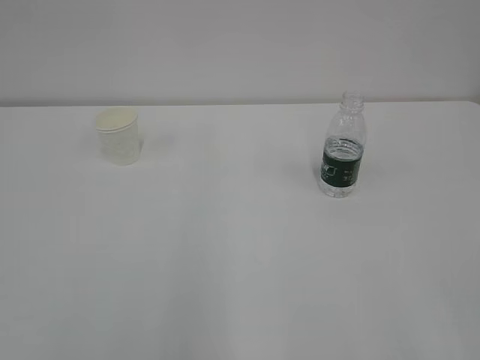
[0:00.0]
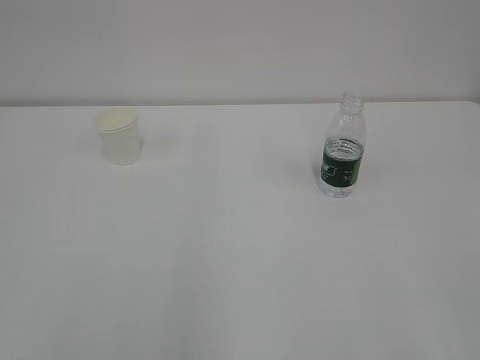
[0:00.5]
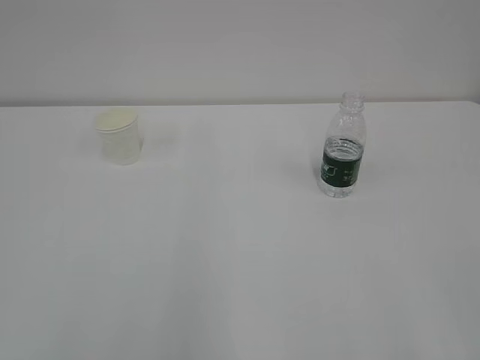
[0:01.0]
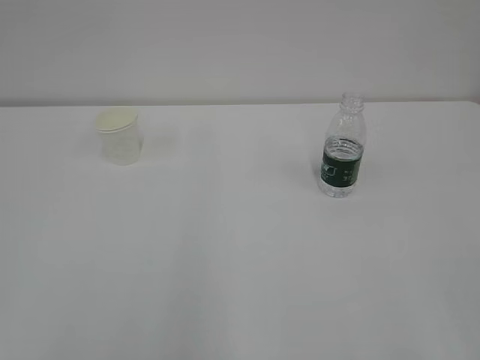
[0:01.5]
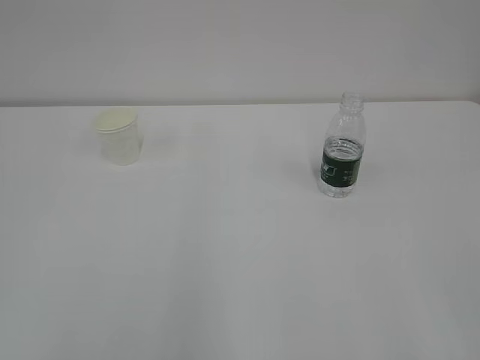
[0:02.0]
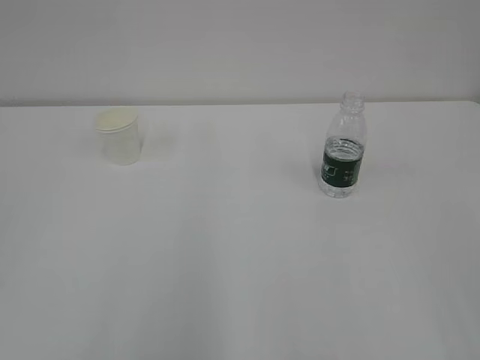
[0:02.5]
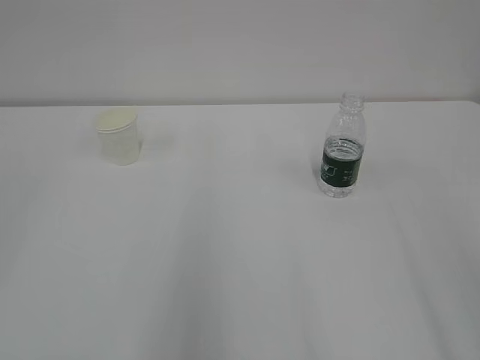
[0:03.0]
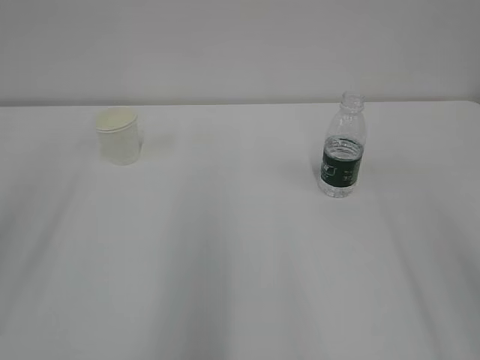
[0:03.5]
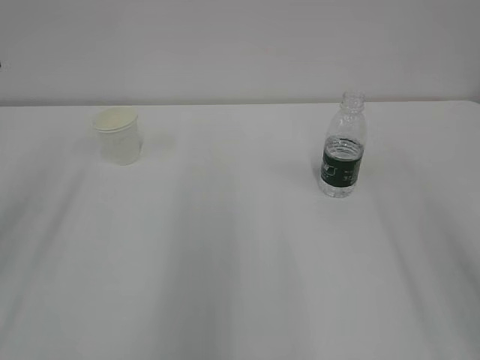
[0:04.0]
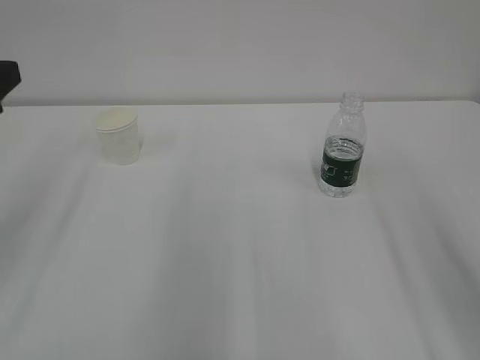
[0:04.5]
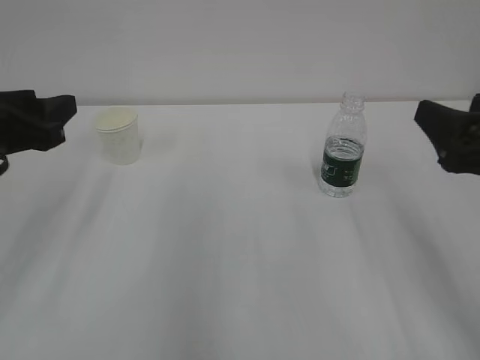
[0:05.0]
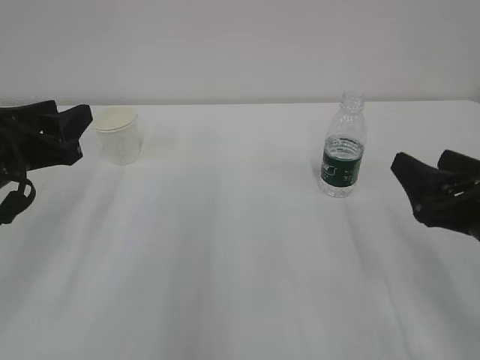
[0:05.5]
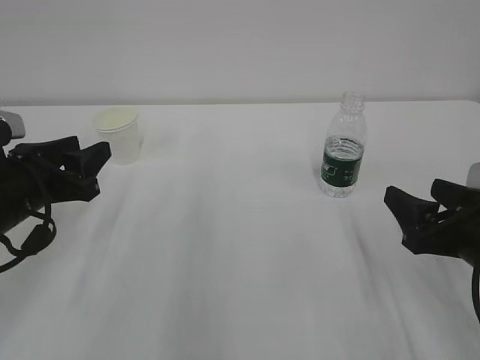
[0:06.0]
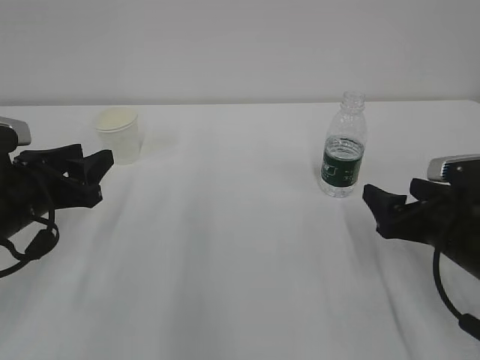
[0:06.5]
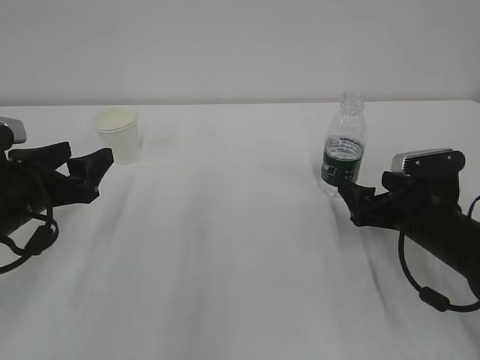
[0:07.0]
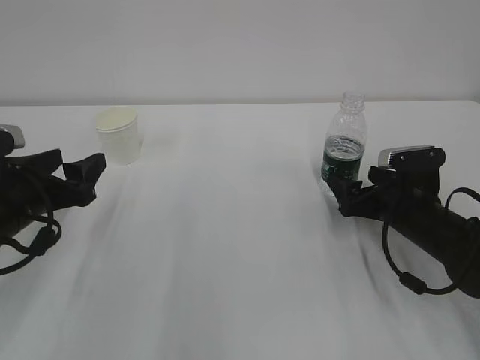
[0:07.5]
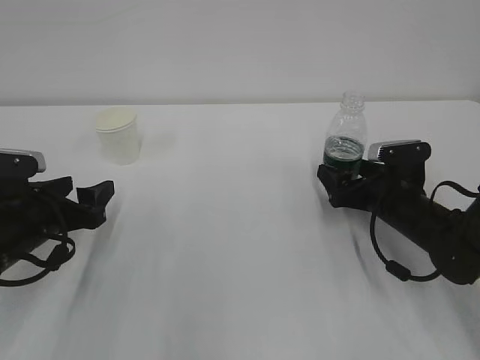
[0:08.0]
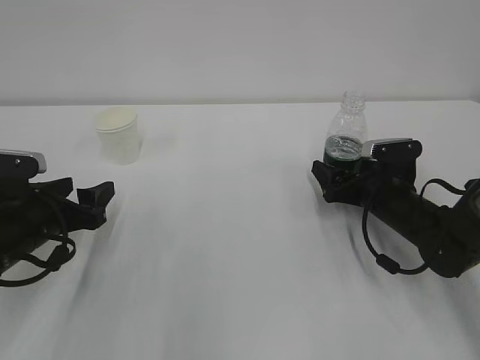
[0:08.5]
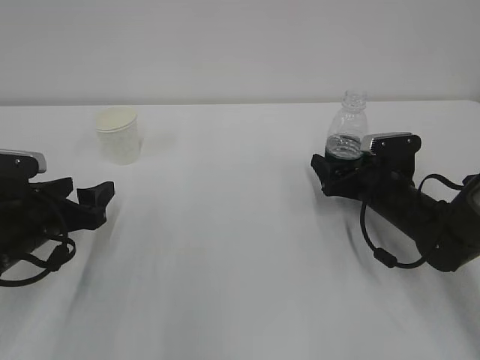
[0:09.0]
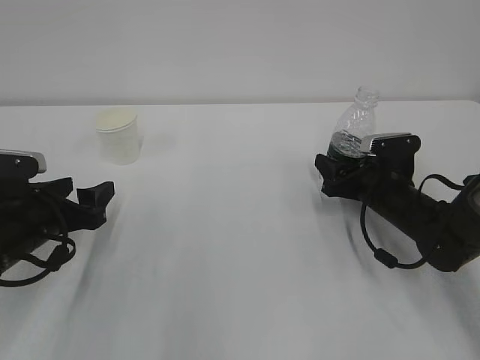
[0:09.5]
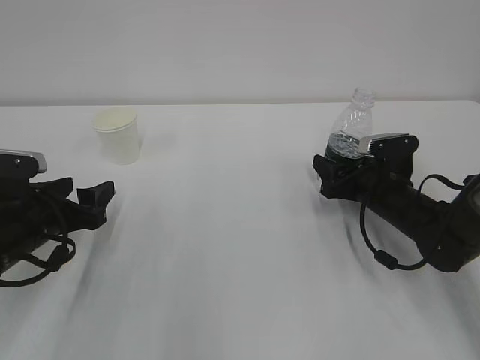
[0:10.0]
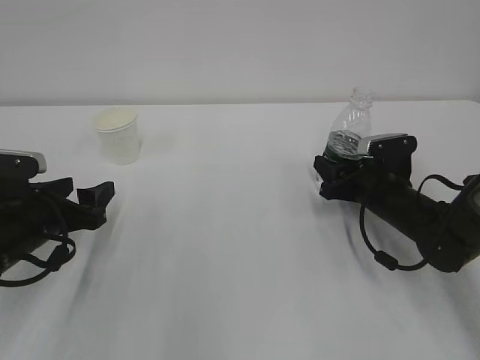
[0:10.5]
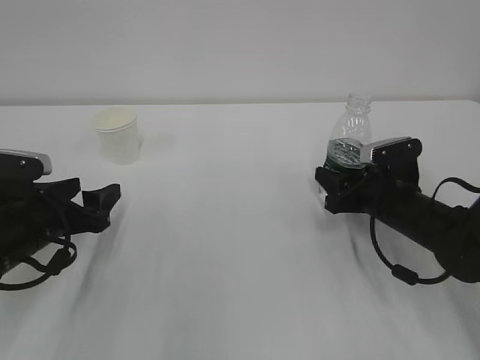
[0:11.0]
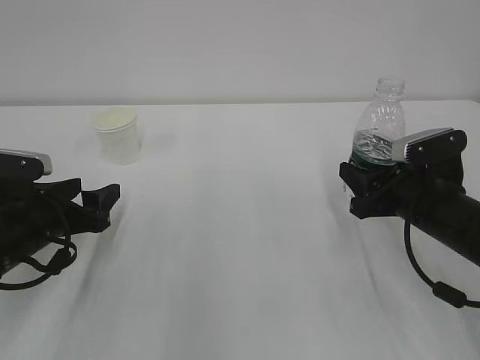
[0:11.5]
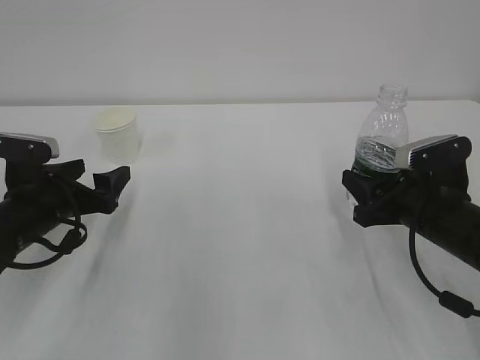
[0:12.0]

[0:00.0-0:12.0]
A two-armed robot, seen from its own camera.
0:04.0 to 0:06.0: The right gripper goes approximately 25 cm downward and forward. The left gripper shifts some 15 cm downward.
0:06.0 to 0:08.0: The right gripper heads forward and downward, covering approximately 15 cm. Meanwhile the left gripper heads downward, covering roughly 5 cm, and opens its fingers.
0:08.0 to 0:10.0: The right gripper closes its fingers.
0:10.0 to 0:12.0: The left gripper opens its fingers; the right gripper is displaced backward and upward by roughly 10 cm.

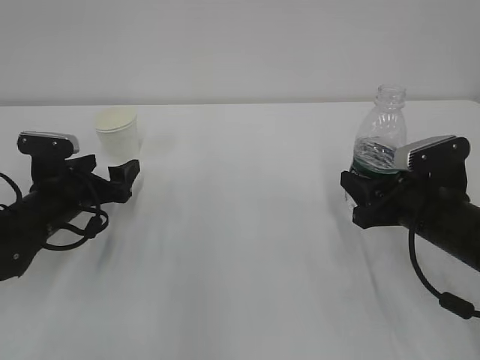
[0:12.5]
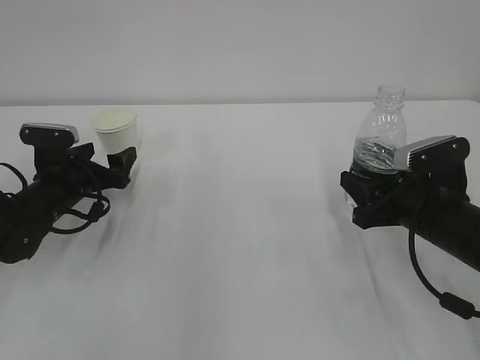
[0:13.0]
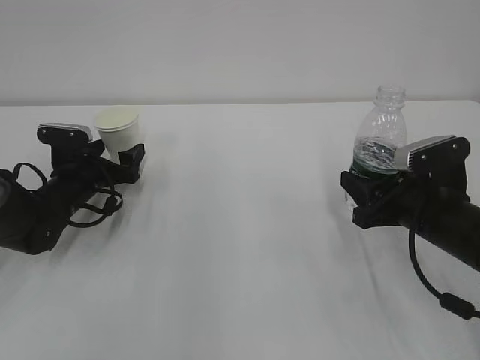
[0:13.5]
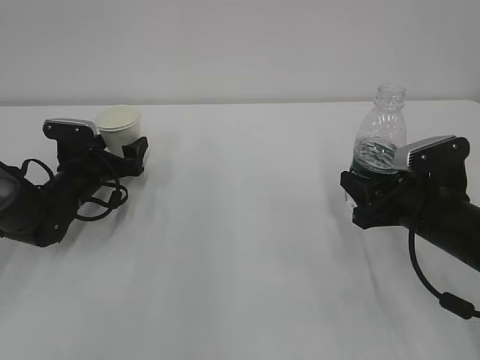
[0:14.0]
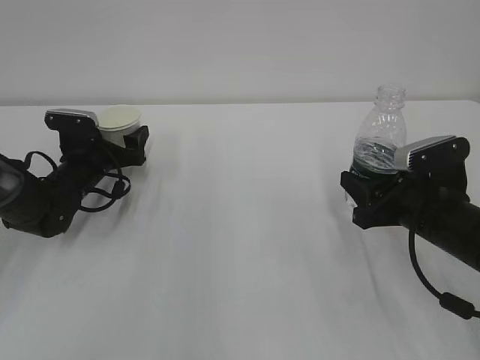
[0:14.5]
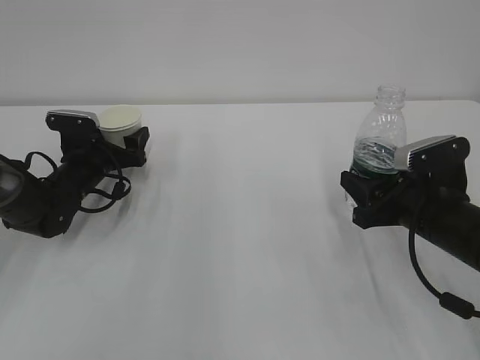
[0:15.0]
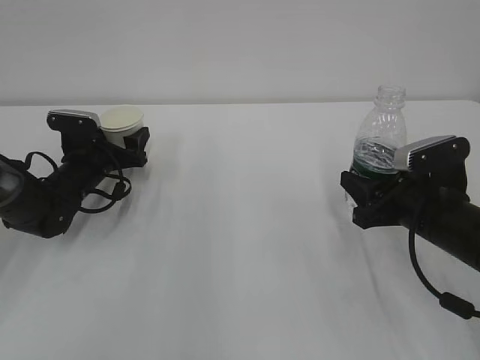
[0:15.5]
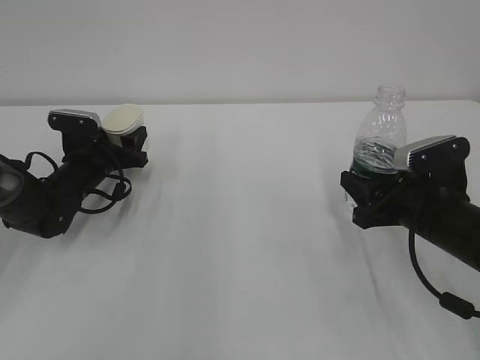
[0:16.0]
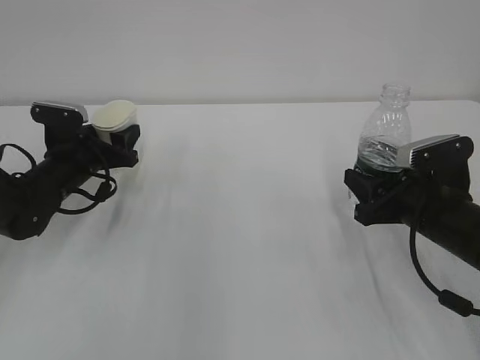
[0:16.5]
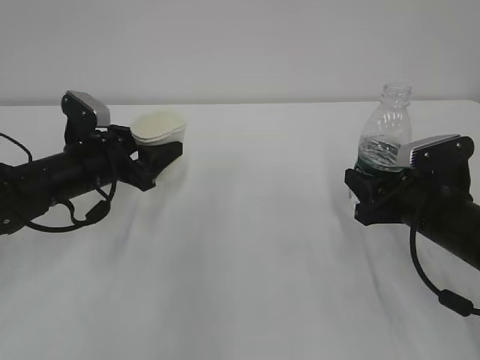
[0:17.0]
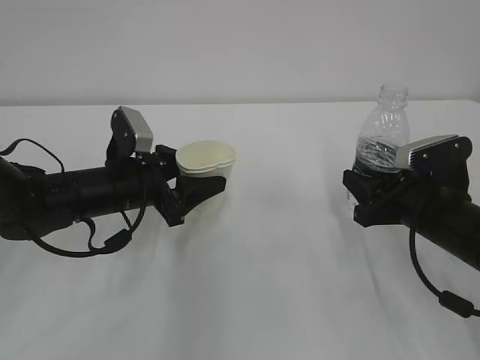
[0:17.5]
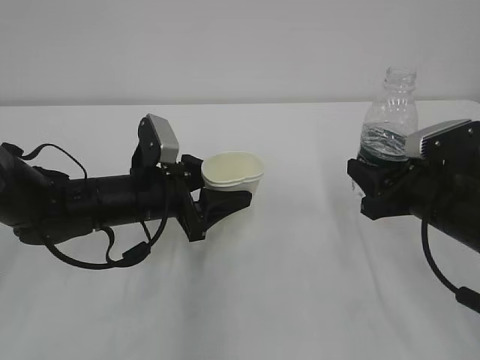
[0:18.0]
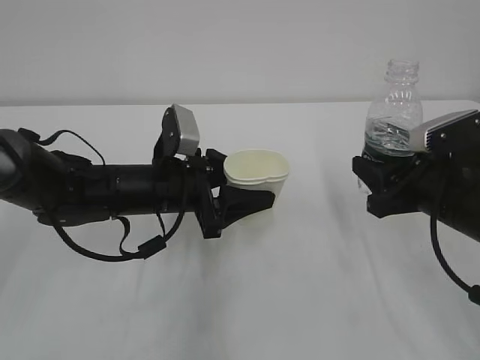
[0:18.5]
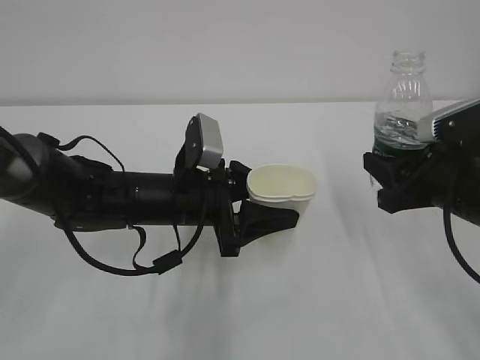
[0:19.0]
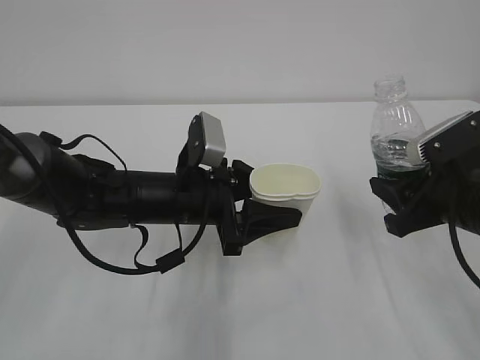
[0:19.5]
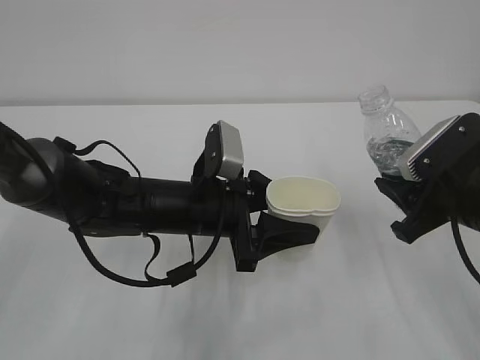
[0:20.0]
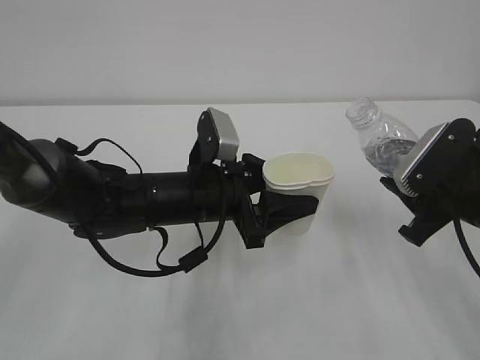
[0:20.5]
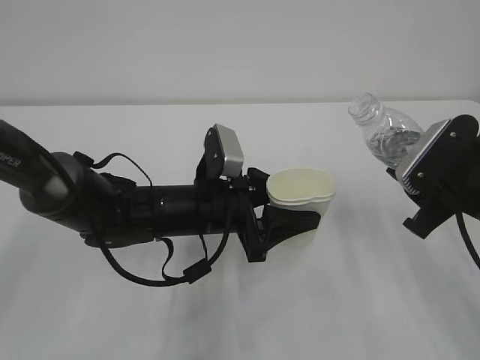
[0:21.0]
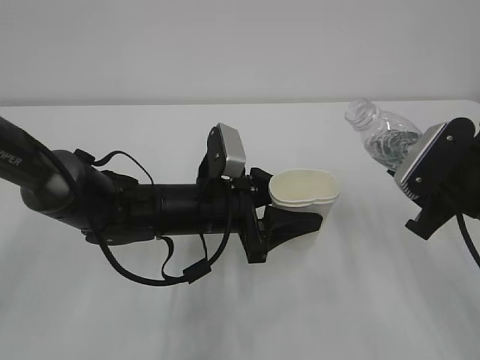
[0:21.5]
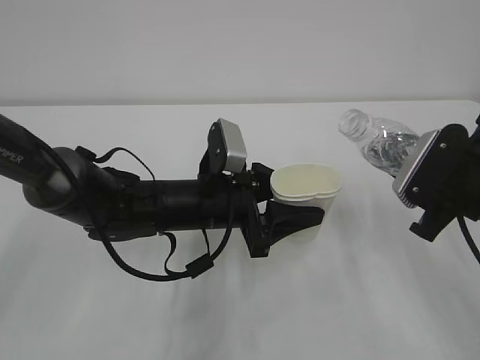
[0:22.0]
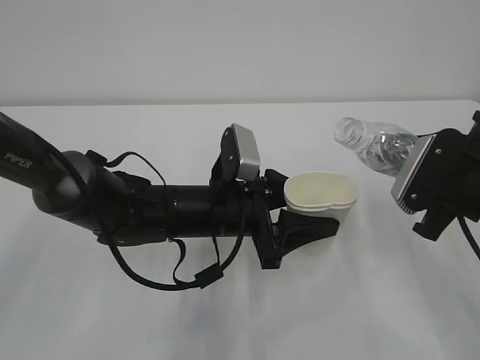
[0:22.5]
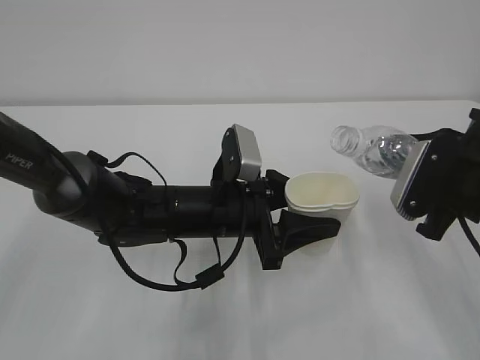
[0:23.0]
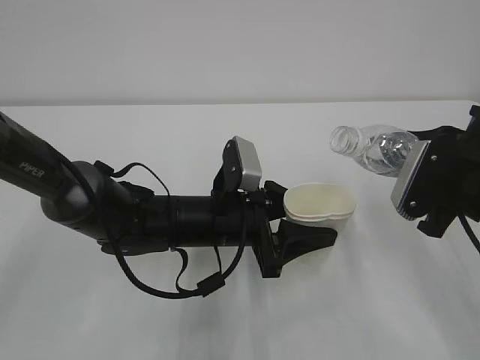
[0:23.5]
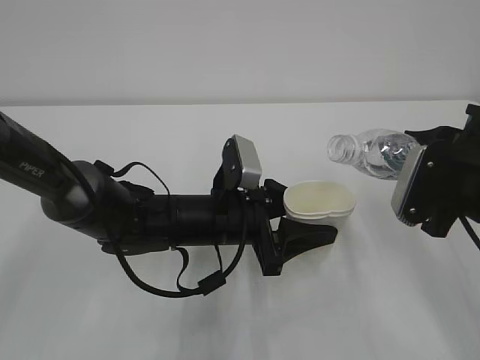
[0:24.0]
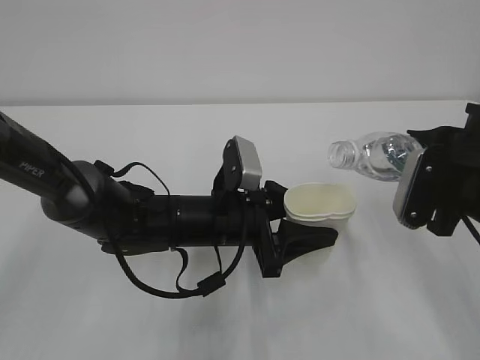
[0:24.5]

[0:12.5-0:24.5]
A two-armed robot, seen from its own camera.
0:12.5 to 0:14.5: The left gripper shifts about 10 cm forward.
0:14.5 to 0:16.5: The left gripper shifts by roughly 5 cm, and closes its fingers.
0:16.5 to 0:18.5: The left gripper moves to the right and backward, about 15 cm.
0:20.5 to 0:22.5: The grippers move only a little.
0:22.5 to 0:24.5: The grippers stay close to where they were, moving slightly.

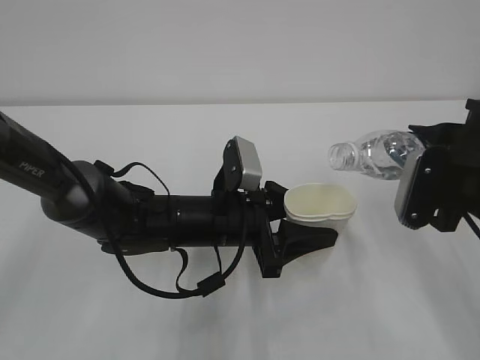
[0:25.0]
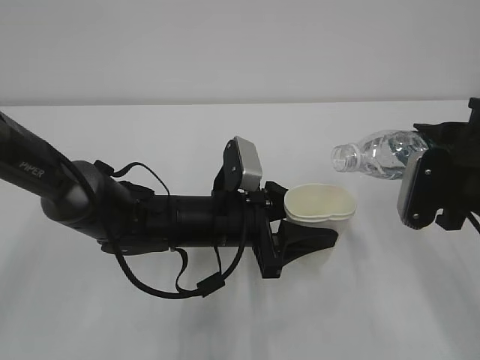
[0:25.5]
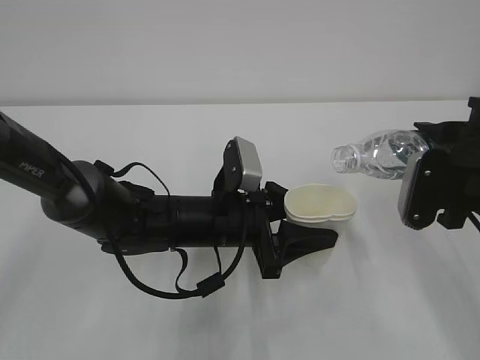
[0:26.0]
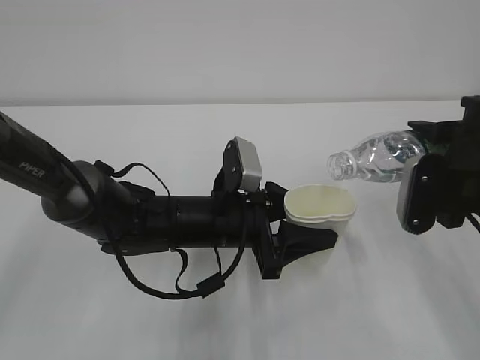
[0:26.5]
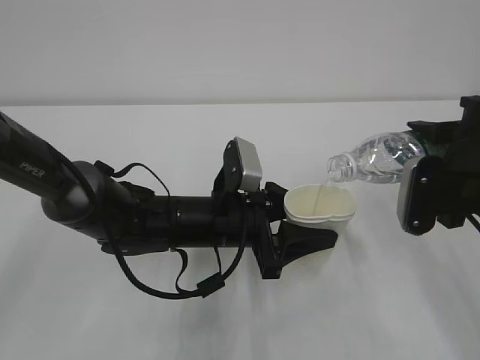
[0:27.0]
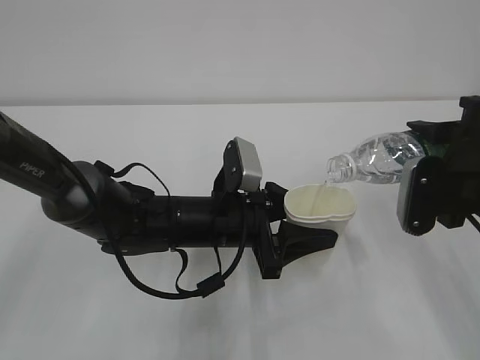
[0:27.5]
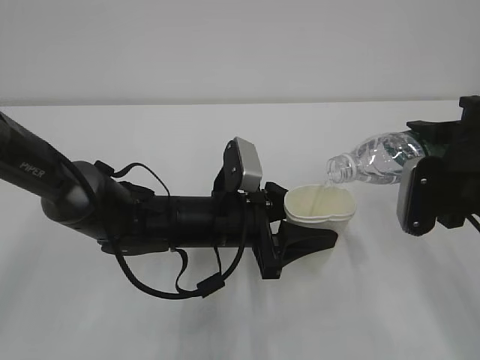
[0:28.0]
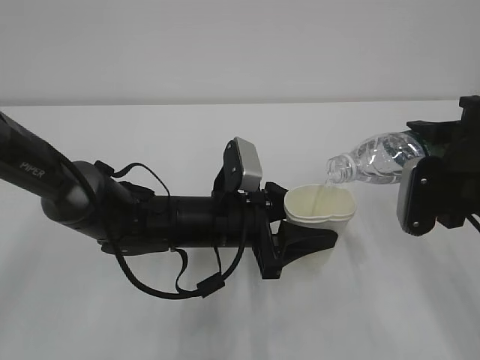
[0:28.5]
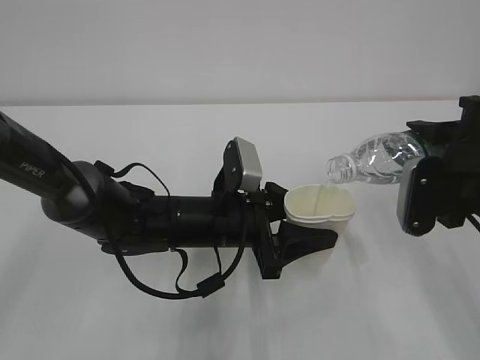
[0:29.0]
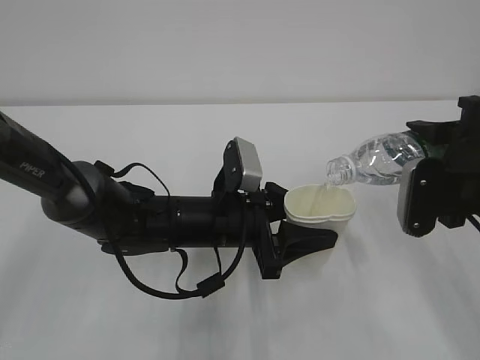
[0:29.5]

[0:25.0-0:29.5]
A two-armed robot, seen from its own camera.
0:25.0 to 0:27.0: There are only small adjustments of the grippers.
0:27.0 to 0:29.5: Both grippers stay about where they are.
